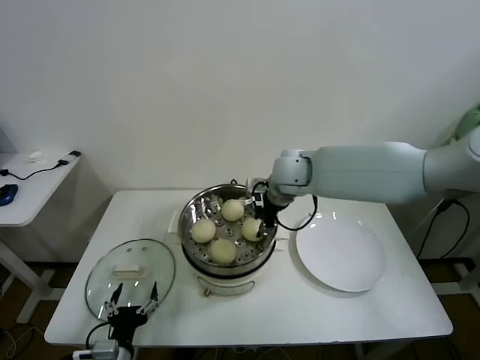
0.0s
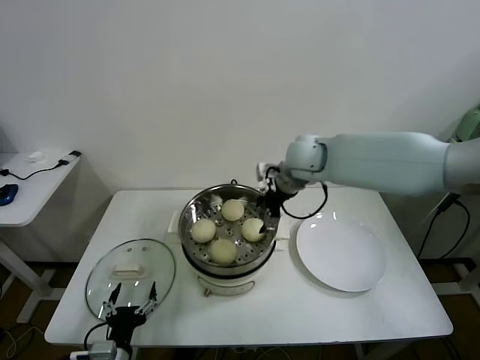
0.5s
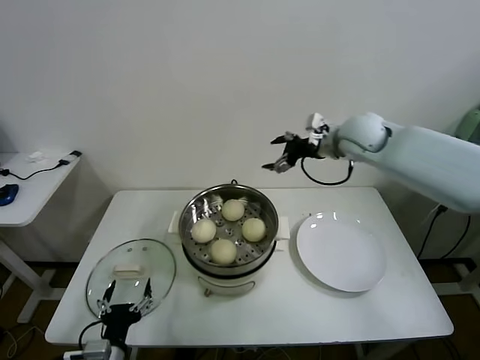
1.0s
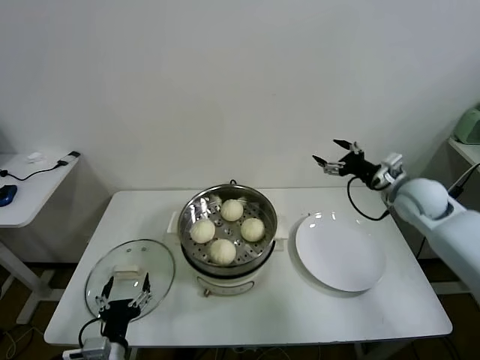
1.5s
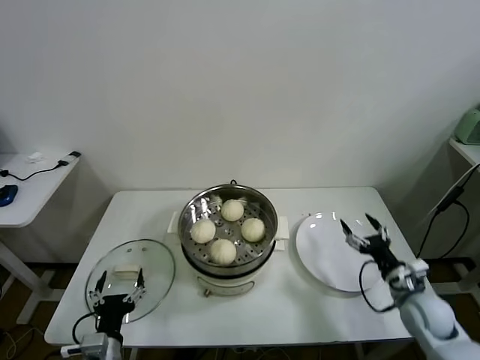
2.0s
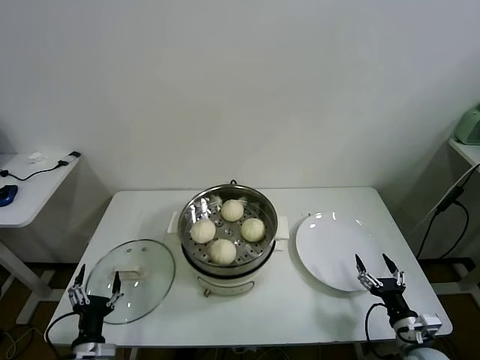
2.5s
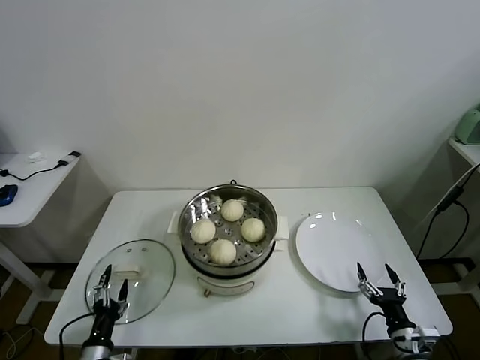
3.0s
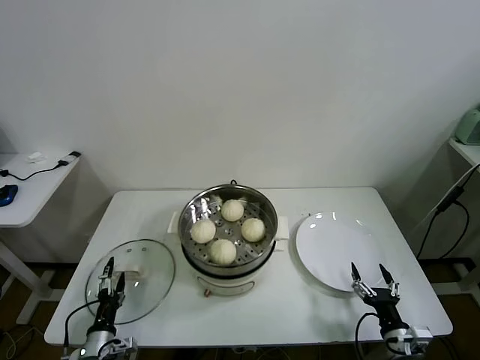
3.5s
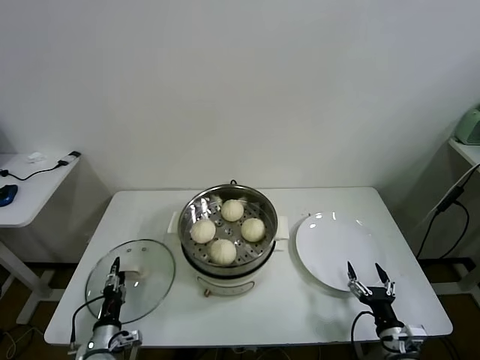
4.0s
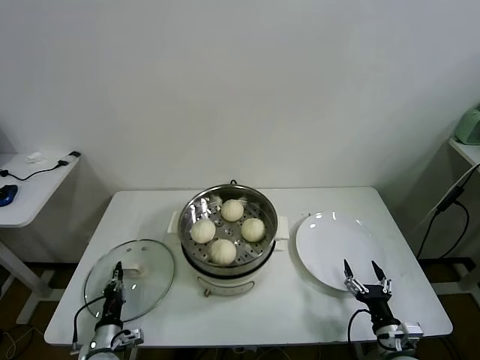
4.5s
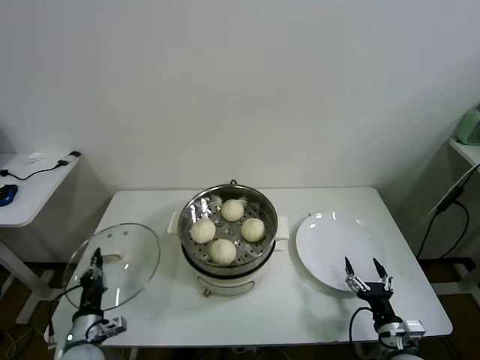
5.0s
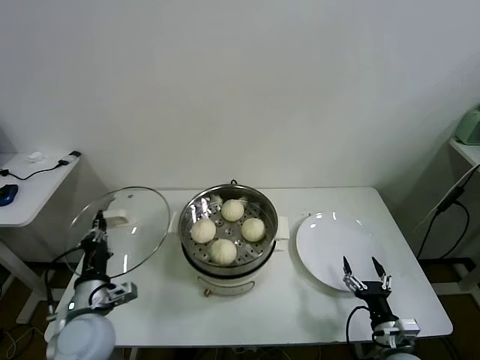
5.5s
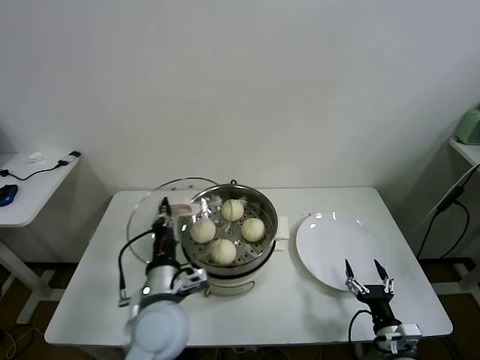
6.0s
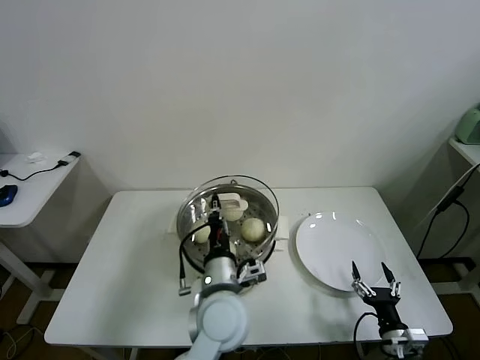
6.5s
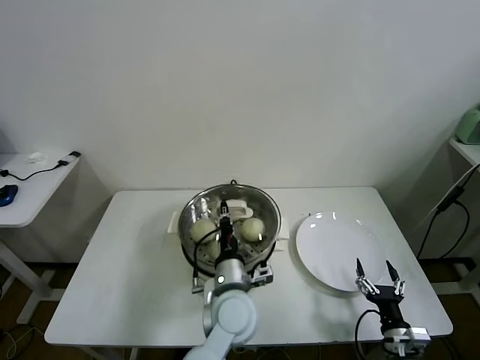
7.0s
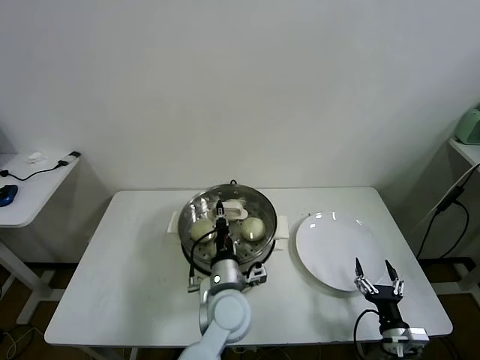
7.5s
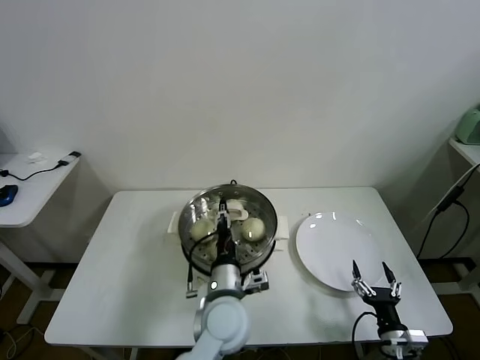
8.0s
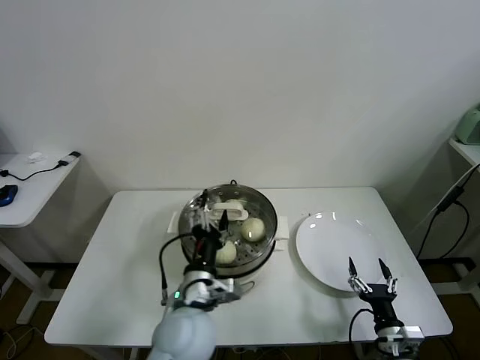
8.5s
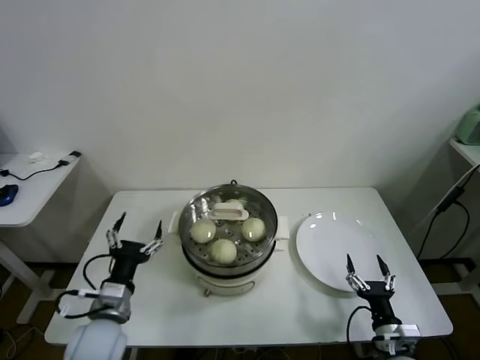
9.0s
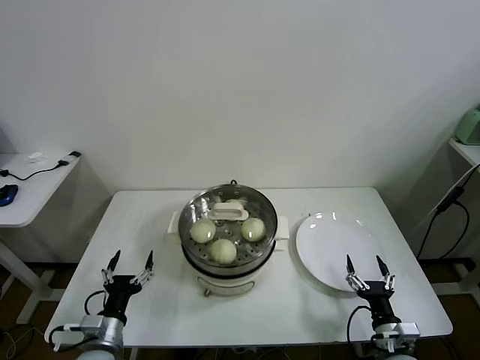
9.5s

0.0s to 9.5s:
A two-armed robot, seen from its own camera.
Task of the whole recording: take steamed baozi put them in steamer.
Step, 0.5s to 4.0s: Grasp the pot lid with left gripper.
Step, 4.5s to 7.5s: Place the pot lid on the steamer with left gripper.
0.0s to 2.0s: The right gripper is displaced to the right, downward and backward by roughly 40 cm, and opens its fingers.
2.0s to 4.0s: The left gripper shifts some 15 cm downward, to the left and forward, while the right gripper shifts some 15 cm backward, downward and to the left.
4.0s to 5.5s: The left gripper goes some 20 cm upward, and closes.
5.5s to 7.5s: The left gripper heads to the right, covering roughly 30 cm.
7.5s to 9.5s: The left gripper travels to the left by about 30 cm, and opens up.

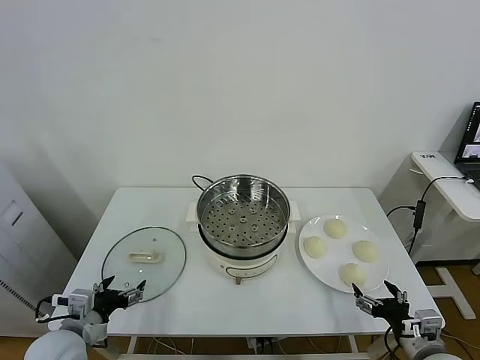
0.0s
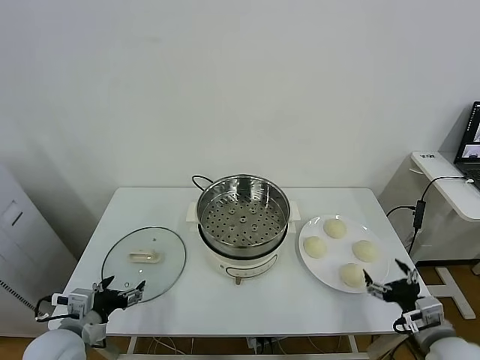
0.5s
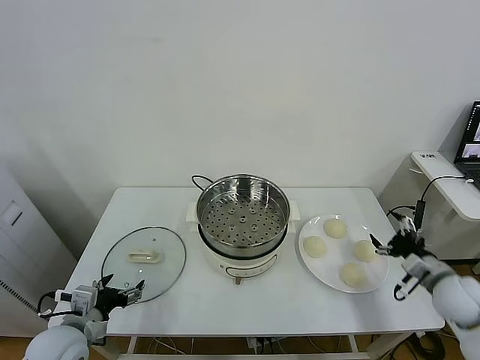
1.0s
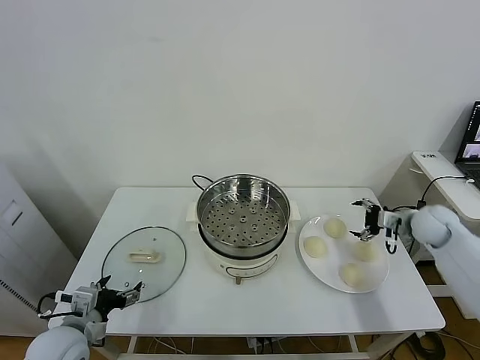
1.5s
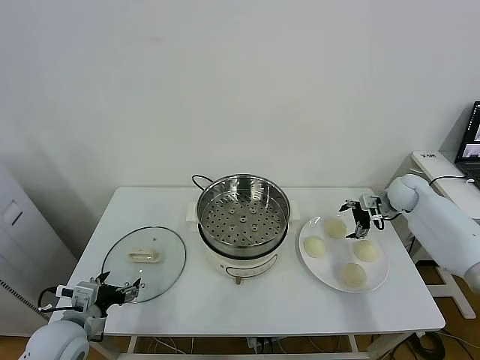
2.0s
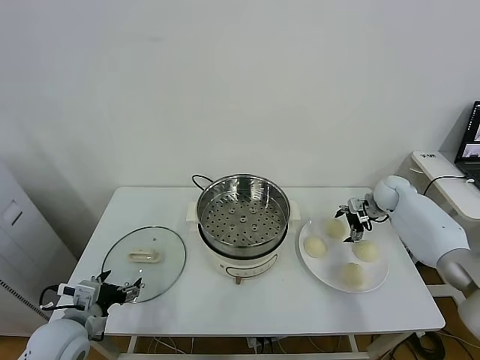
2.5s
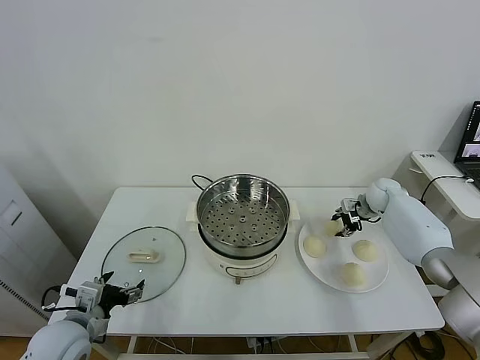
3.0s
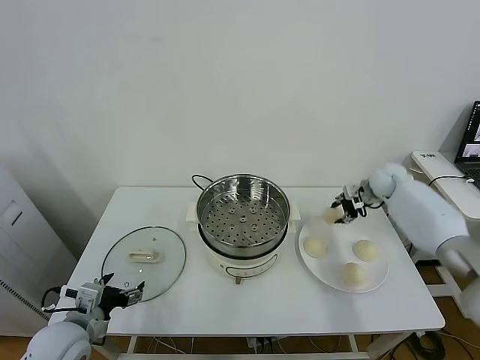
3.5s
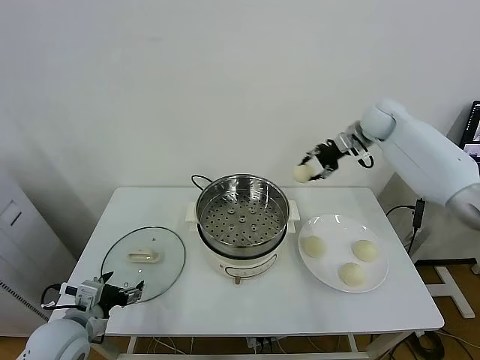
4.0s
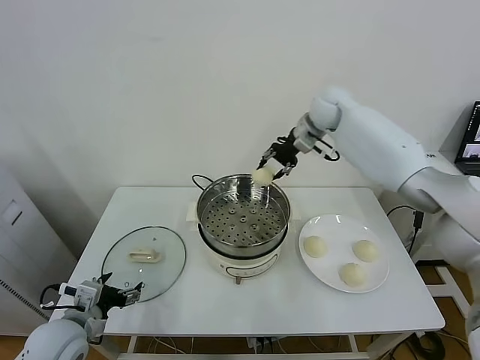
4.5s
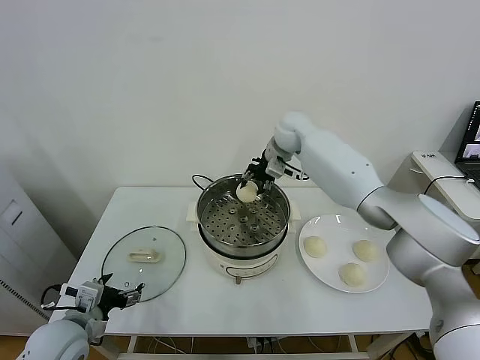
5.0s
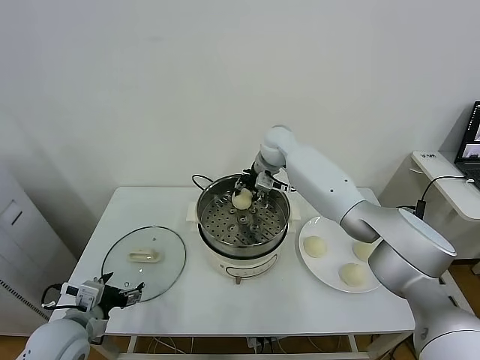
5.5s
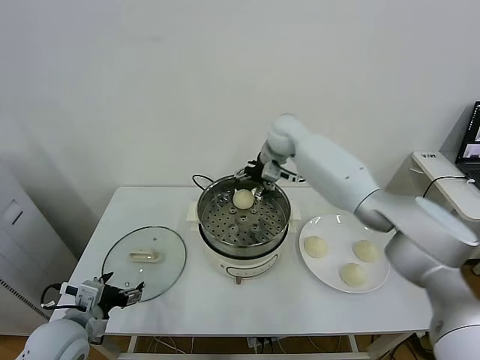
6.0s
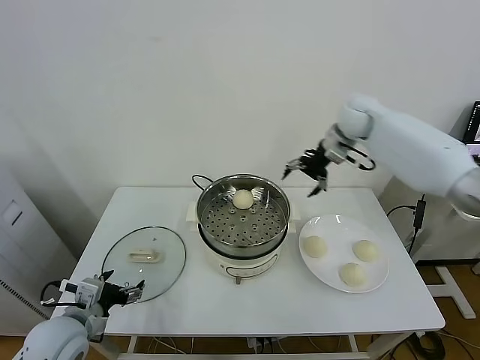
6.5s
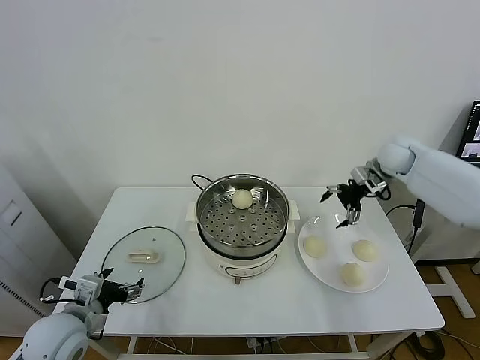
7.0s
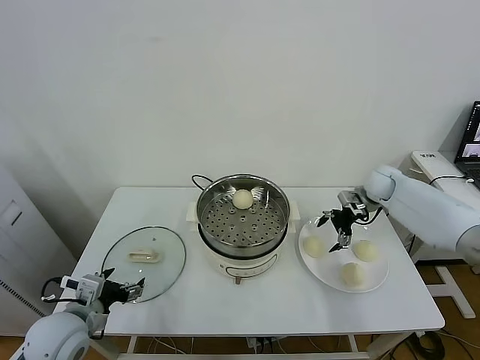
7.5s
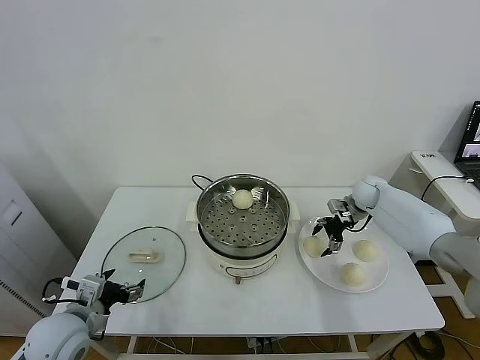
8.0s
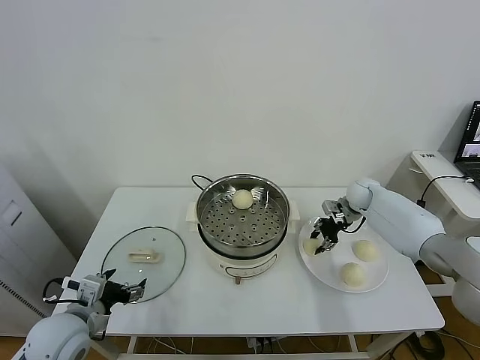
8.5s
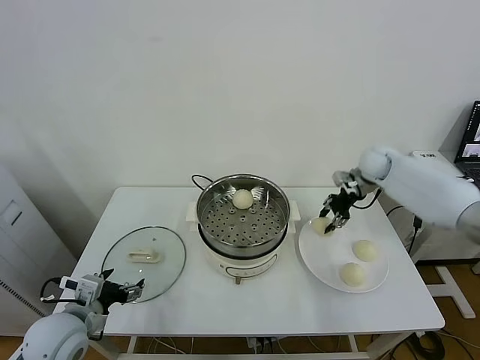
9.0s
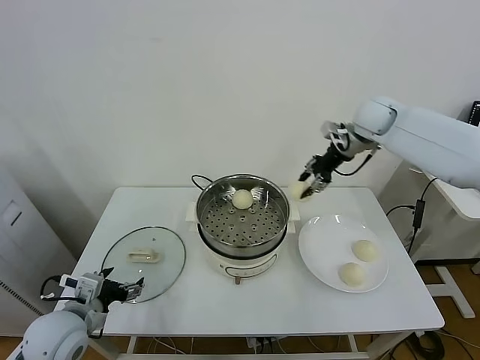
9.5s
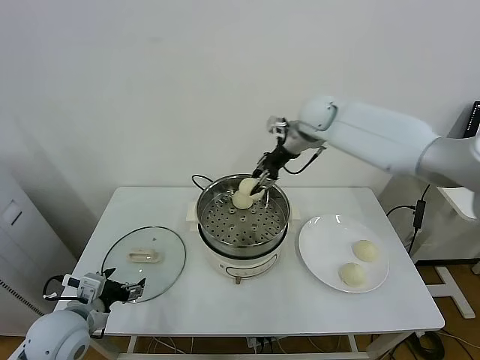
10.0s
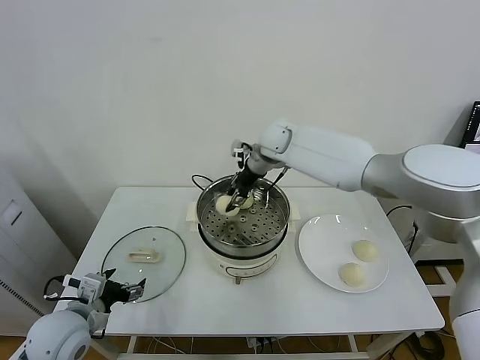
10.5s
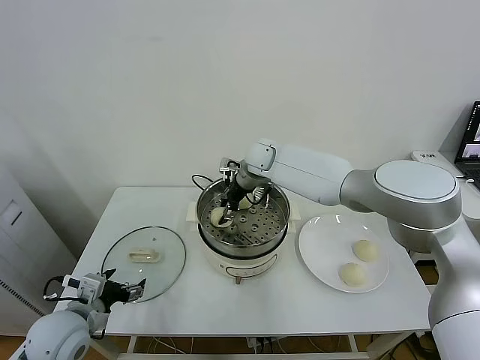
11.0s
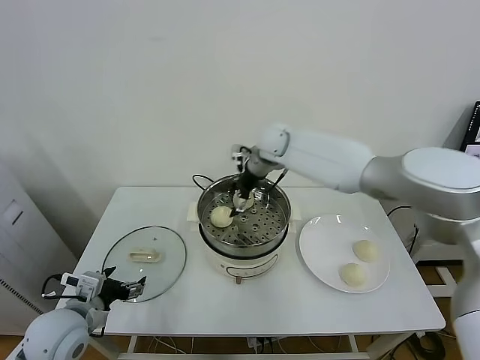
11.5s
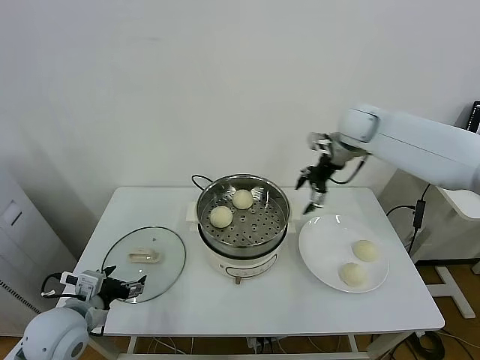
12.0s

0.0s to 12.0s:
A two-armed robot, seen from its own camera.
Task of the whole recording: take steamed baozi put them in steamer.
Step, 0.0s to 2.5s: Grasp the baozi in the plate with right gripper.
Step, 3.5s to 5.5s: Place the baozi on the steamer with right gripper.
Step, 6.5s to 8.0s: Grasp the baozi in the plate with right gripper.
Step, 8.5s to 11.0s: Place the baozi on the steamer with right gripper.
2.0s to 4.0s: The right gripper goes roughly 25 cm upward and to the left, and closes.
4.0s to 6.0s: The right gripper heads to the left, covering some 15 cm, and opens up.
6.0s to 8.0s: The right gripper goes approximately 30 cm to the right and downward.
8.0s to 10.0s: The right gripper travels upward and to the left by approximately 30 cm, and closes.
10.0s to 12.0s: The right gripper shifts roughly 15 cm to the right, and opens up.

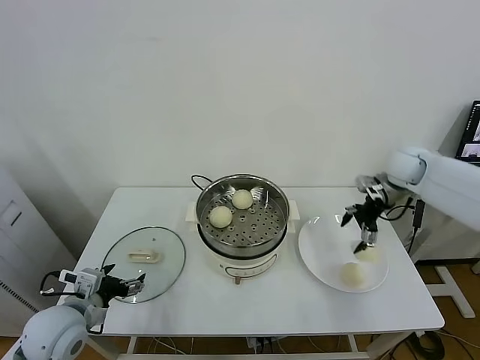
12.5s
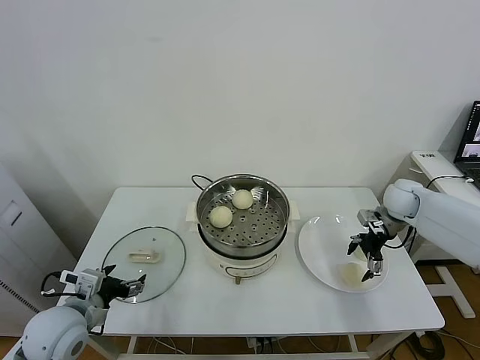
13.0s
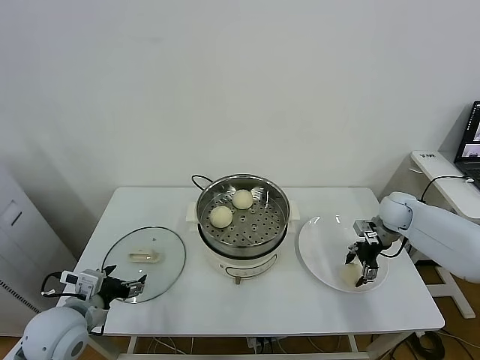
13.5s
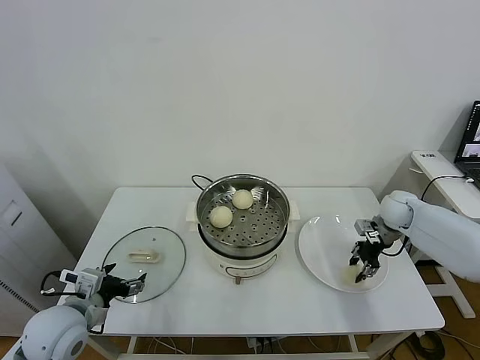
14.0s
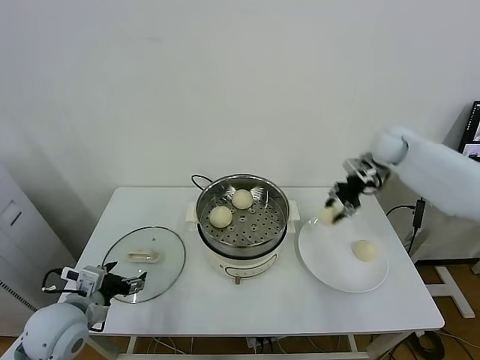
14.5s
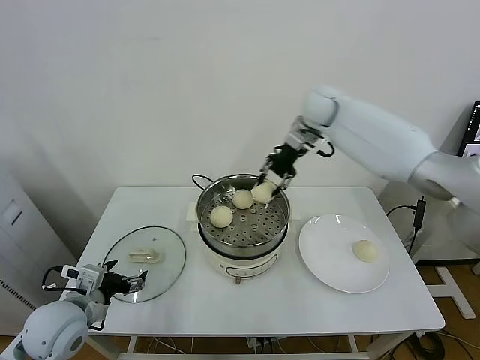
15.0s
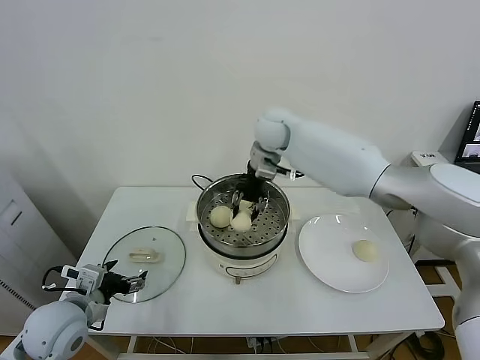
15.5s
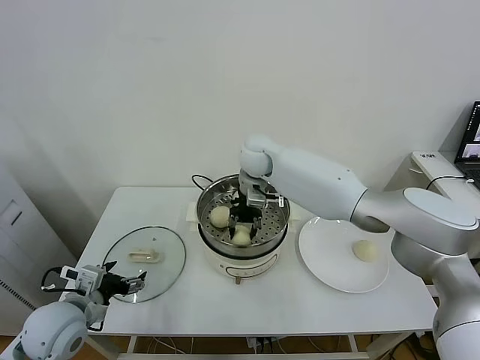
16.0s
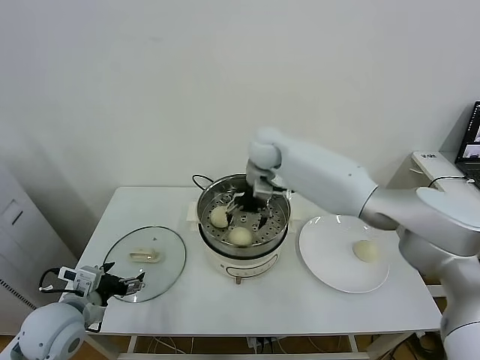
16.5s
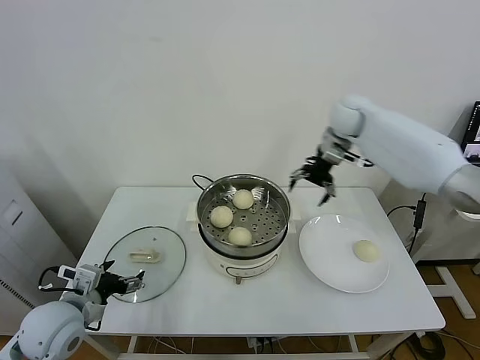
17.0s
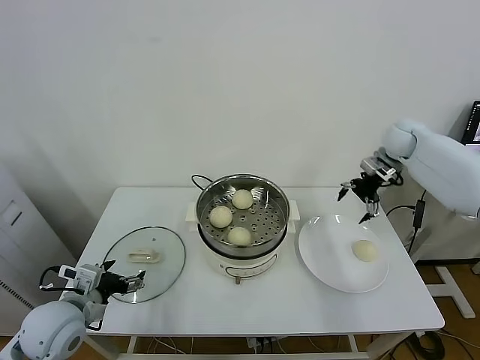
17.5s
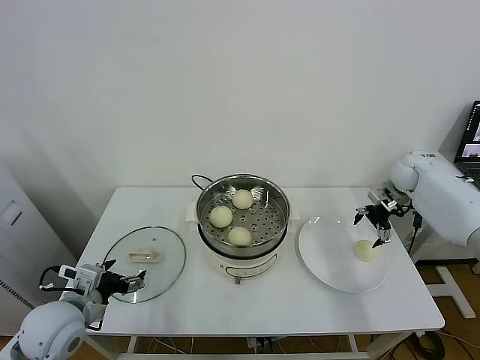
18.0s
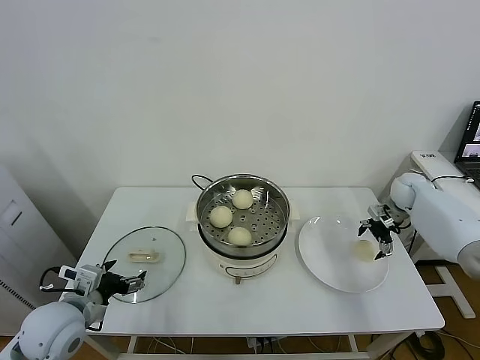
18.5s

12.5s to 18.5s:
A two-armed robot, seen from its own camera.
Task of the whole recording: take steamed baozi put them in steamer.
Step, 14.0s to 16.5s: Place the baozi on the steamer with right gripper.
12.5s to 14.5s: The right gripper is displaced forward by approximately 5 cm, moves about 15 cm downward and comes back, and closes its fingers.
14.5s to 16.5s: The right gripper travels to the left by some 30 cm, and opens.
16.5s to 18.5s: The right gripper heads to the right, covering some 40 cm.
